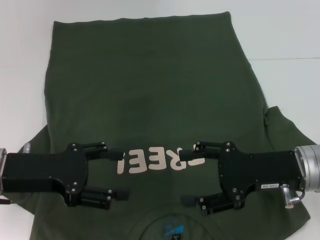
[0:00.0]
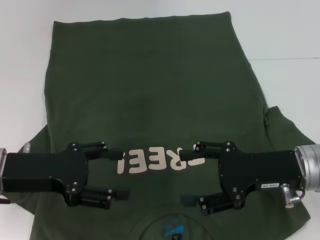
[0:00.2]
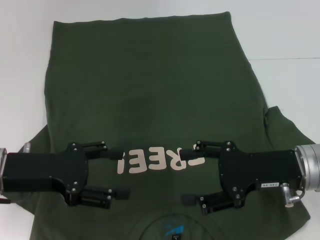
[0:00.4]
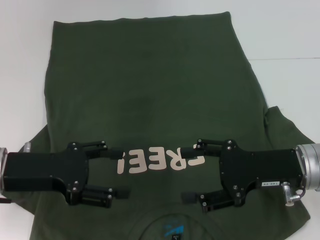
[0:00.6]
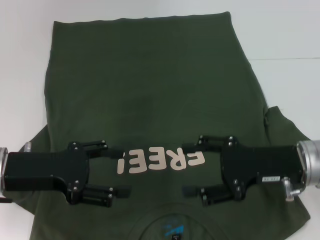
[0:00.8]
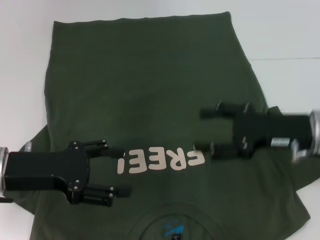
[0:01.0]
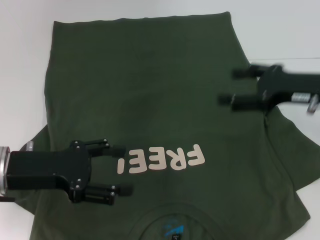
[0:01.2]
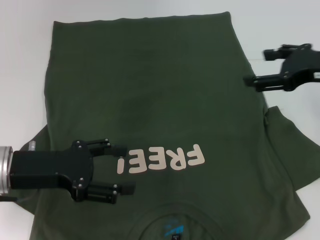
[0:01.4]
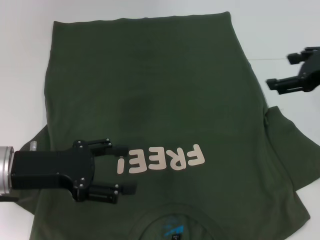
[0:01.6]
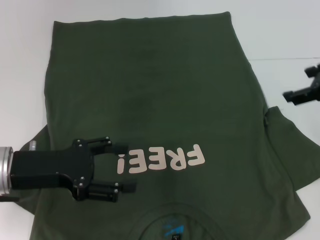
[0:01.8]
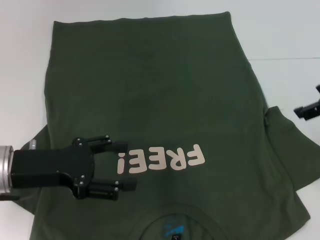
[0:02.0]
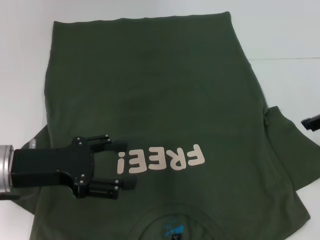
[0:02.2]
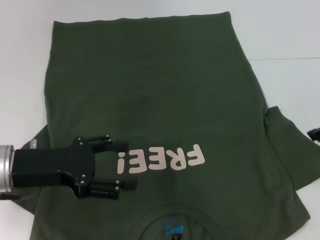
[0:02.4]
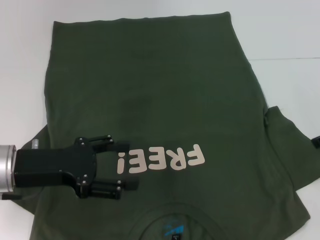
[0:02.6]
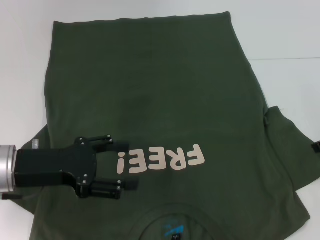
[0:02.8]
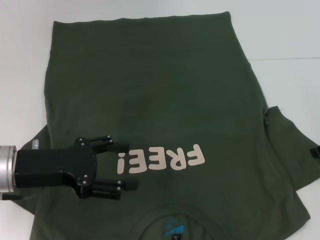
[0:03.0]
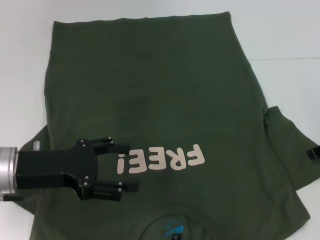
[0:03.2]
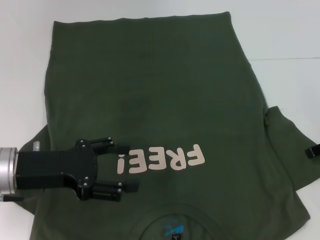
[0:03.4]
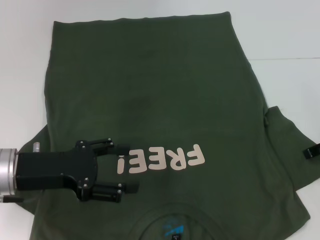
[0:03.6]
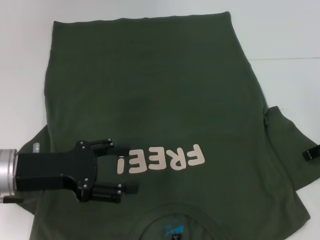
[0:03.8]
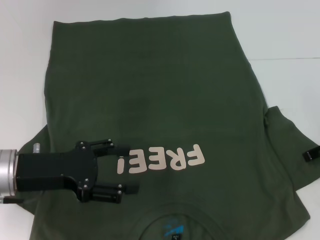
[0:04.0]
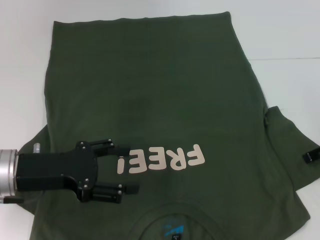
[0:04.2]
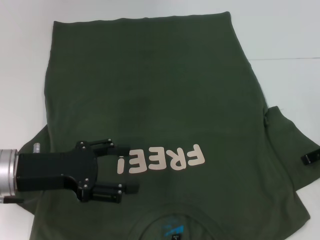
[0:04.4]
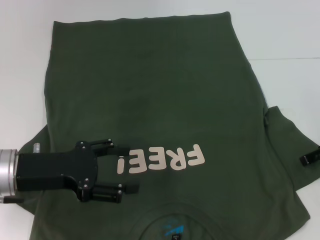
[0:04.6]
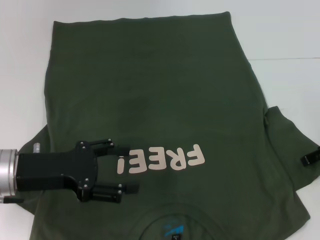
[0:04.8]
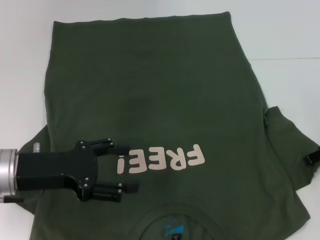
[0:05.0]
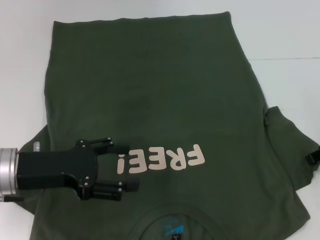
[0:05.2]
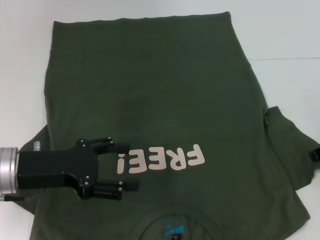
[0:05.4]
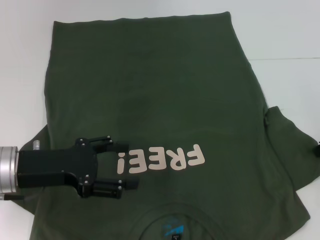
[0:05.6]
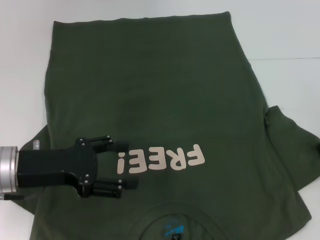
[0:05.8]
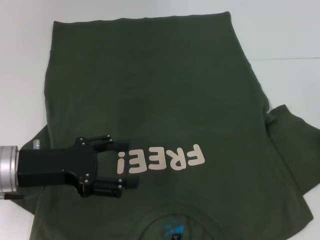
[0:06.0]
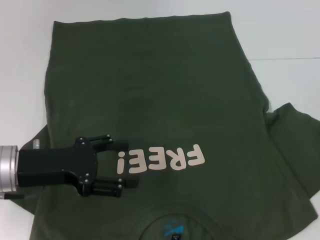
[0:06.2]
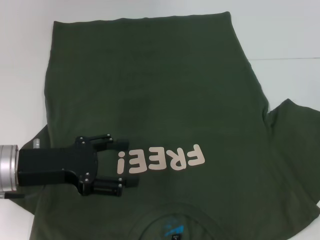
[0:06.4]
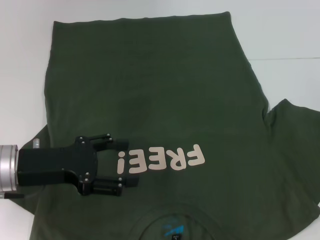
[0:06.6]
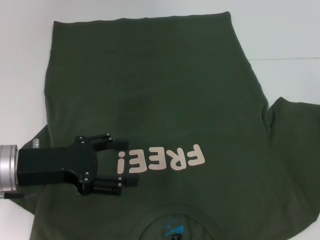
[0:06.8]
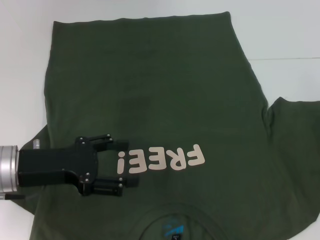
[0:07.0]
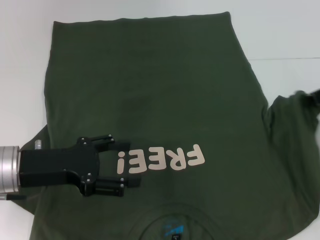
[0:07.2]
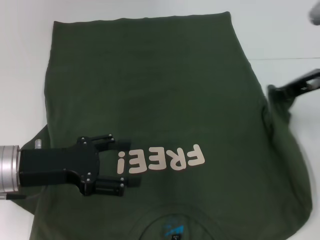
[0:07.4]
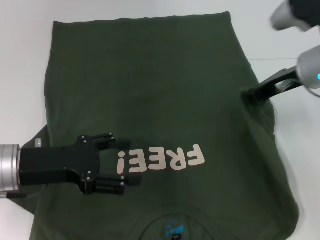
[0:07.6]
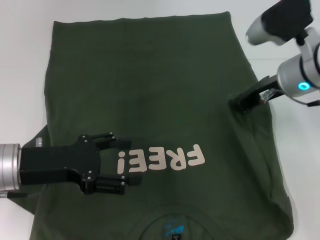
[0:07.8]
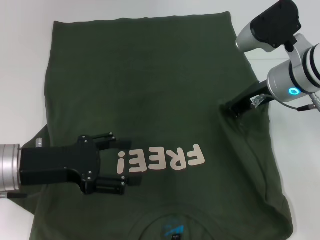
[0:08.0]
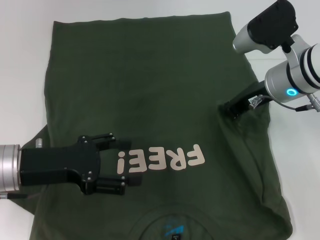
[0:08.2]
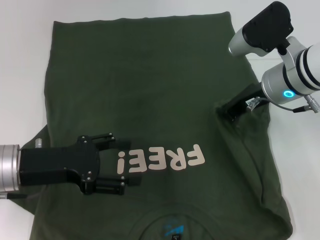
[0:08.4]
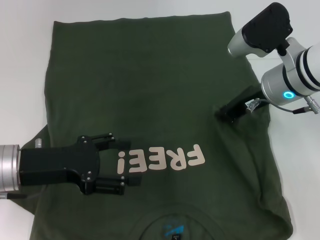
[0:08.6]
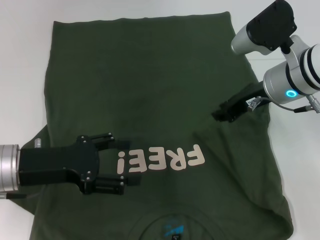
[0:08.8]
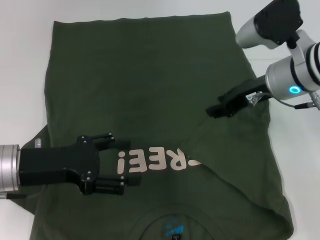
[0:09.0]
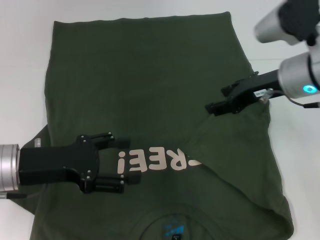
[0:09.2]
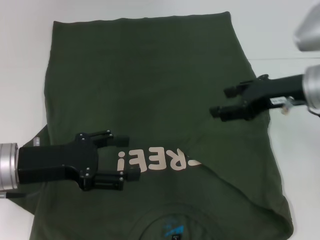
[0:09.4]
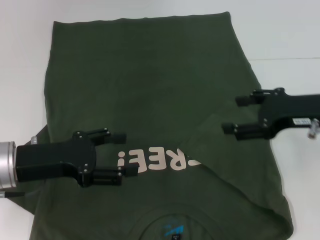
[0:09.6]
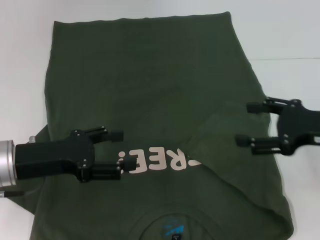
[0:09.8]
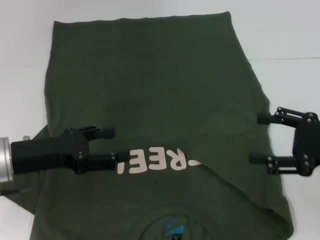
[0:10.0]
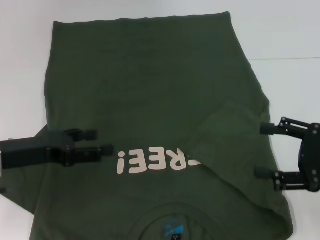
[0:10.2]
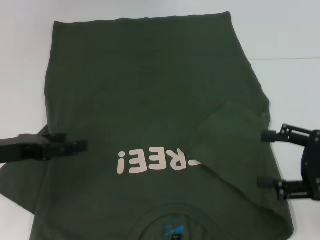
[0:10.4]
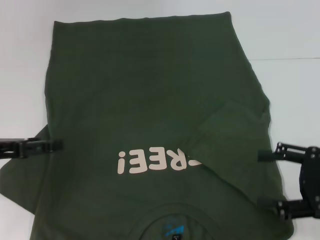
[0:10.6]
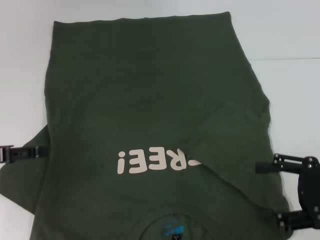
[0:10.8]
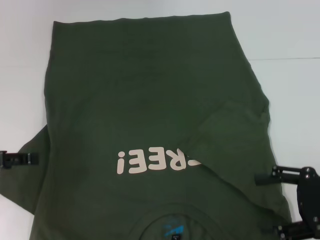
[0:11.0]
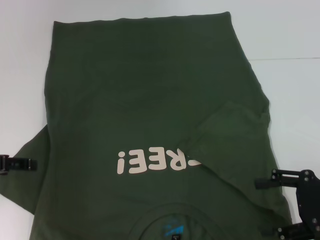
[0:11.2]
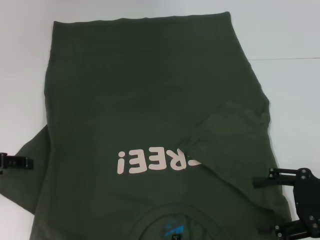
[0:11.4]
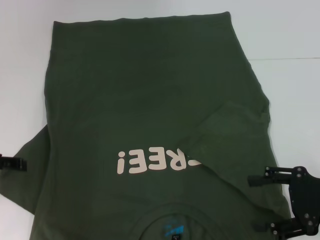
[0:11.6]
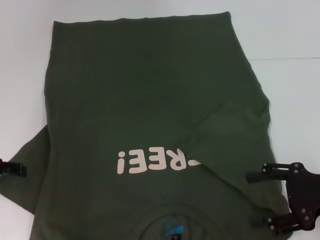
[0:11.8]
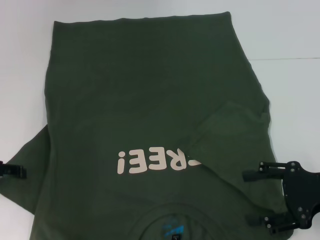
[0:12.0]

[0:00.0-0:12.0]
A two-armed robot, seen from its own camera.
Step, 0:00.0 to 0:09.0: Fold the bottom right sleeve with your right hand.
0:00.0 to 0:01.6: The right gripper heads upward, to the right and forward, covering about 15 cm.
0:01.6 to 0:03.0: The right gripper heads downward, covering about 5 cm.
0:03.0 to 0:04.4: The grippers move only a little.
0:04.4 to 0:06.0: The right gripper closes up.
0:06.0 to 0:07.6: The right gripper goes some 10 cm to the left.
0:07.6 to 0:09.0: The grippers move only a little.
0:09.0 to 0:10.4: The left gripper is displaced to the left by roughly 5 cm, while the right gripper goes some 20 cm backward and to the right, and opens its fingers.

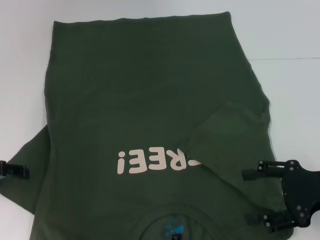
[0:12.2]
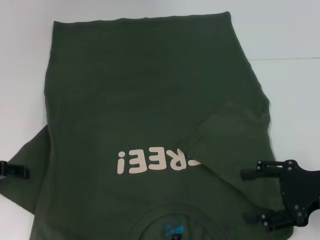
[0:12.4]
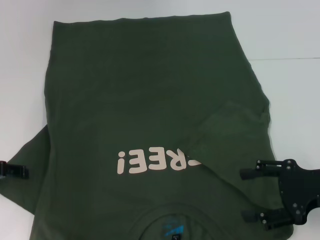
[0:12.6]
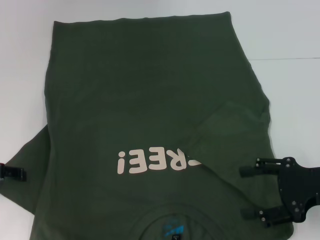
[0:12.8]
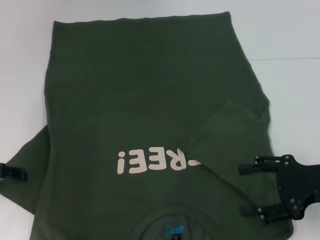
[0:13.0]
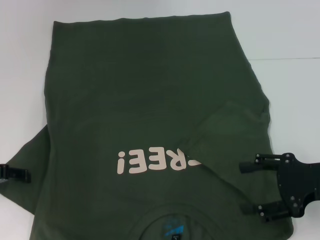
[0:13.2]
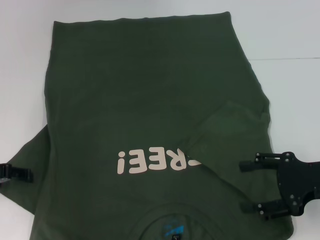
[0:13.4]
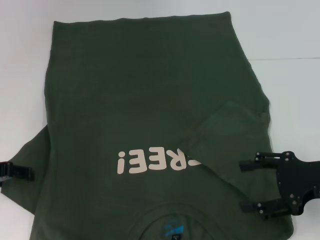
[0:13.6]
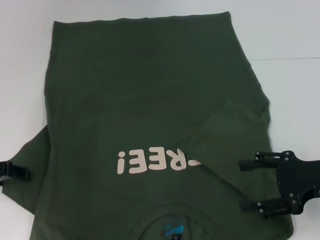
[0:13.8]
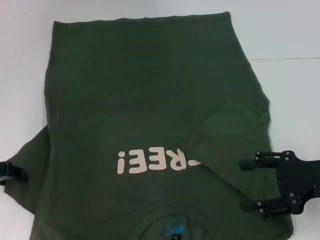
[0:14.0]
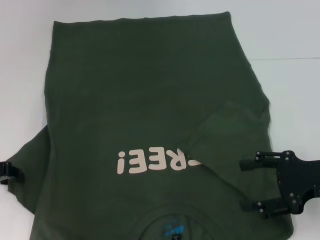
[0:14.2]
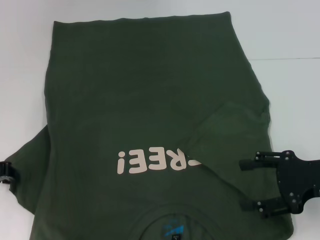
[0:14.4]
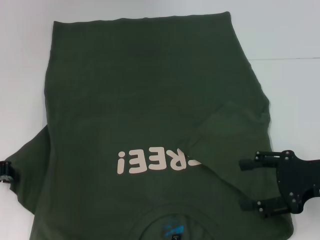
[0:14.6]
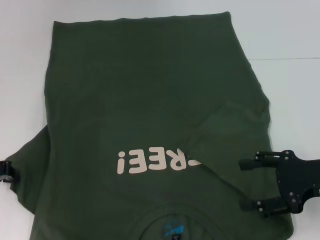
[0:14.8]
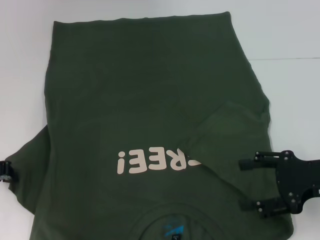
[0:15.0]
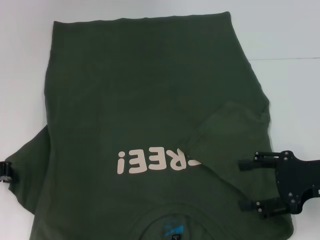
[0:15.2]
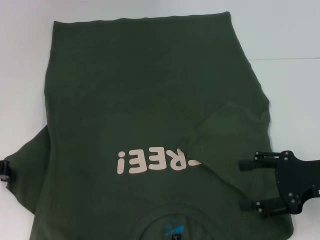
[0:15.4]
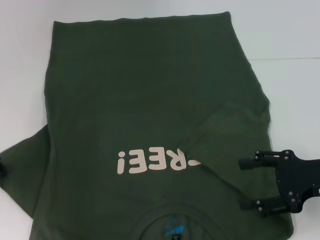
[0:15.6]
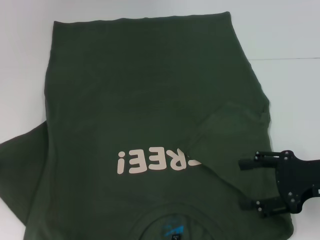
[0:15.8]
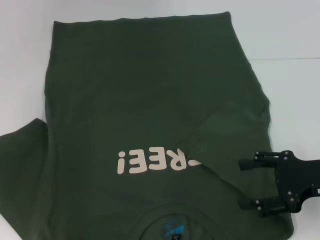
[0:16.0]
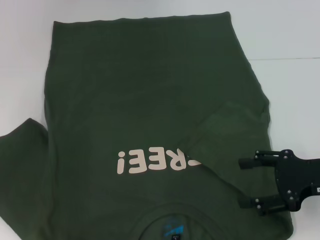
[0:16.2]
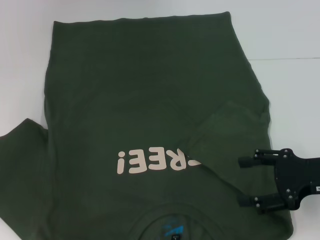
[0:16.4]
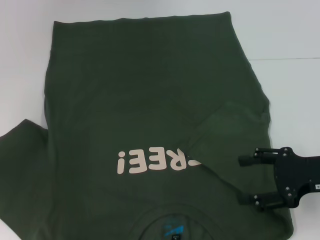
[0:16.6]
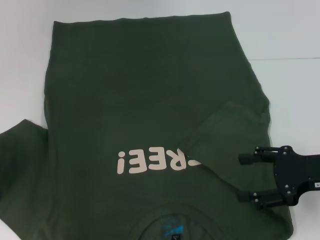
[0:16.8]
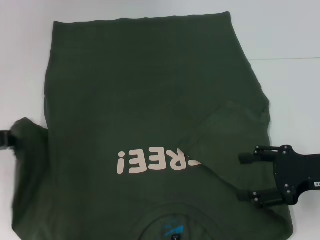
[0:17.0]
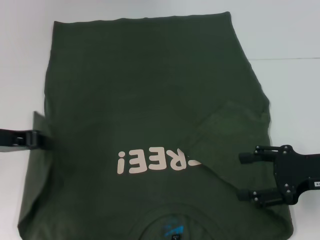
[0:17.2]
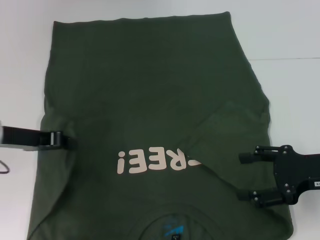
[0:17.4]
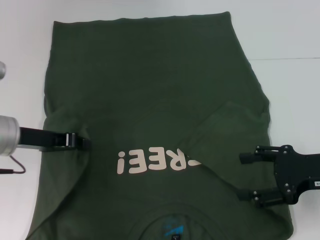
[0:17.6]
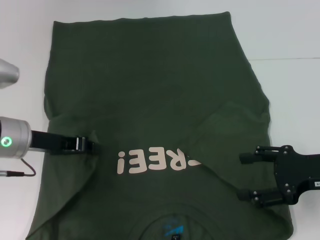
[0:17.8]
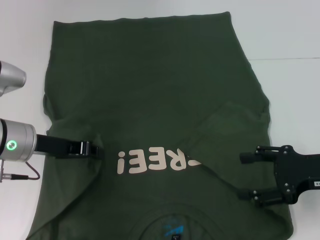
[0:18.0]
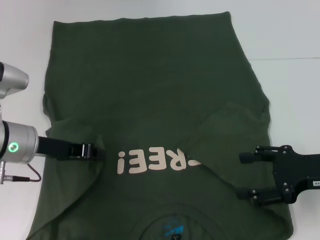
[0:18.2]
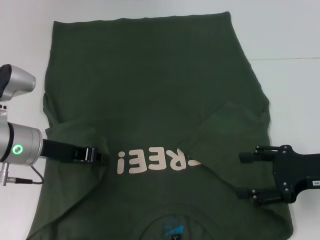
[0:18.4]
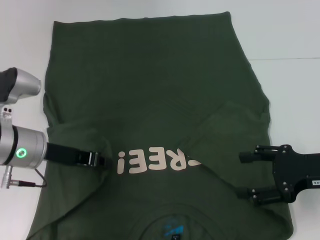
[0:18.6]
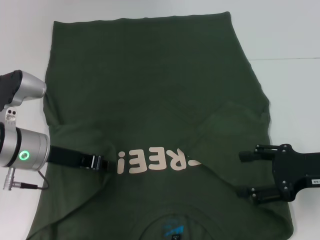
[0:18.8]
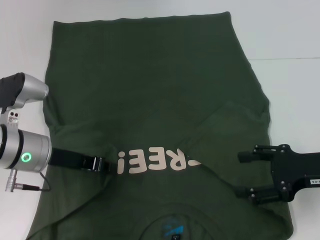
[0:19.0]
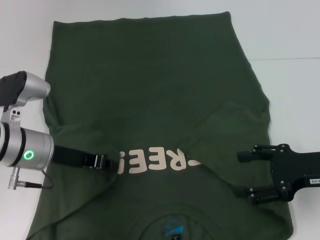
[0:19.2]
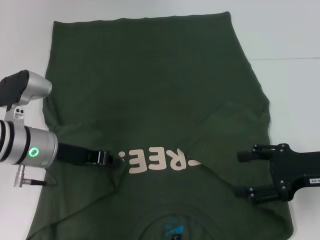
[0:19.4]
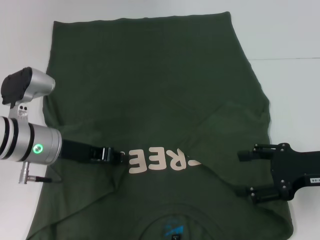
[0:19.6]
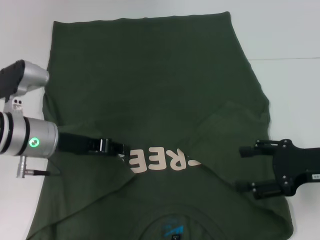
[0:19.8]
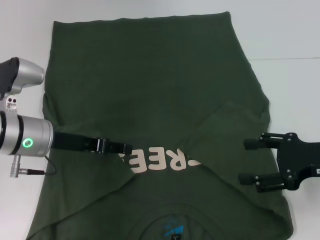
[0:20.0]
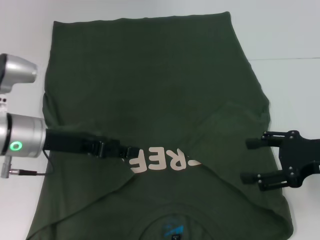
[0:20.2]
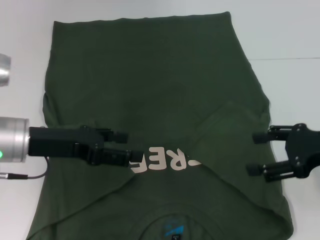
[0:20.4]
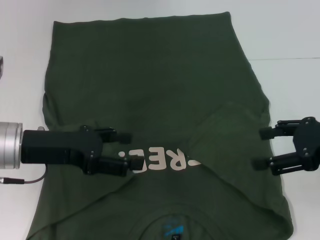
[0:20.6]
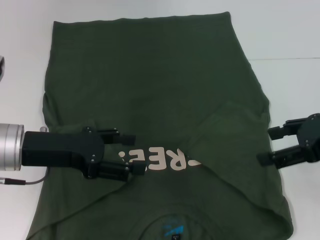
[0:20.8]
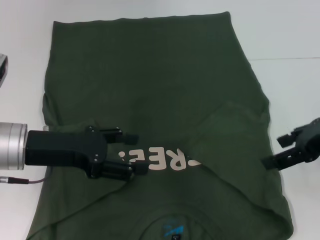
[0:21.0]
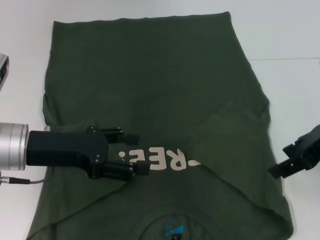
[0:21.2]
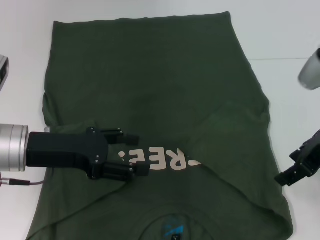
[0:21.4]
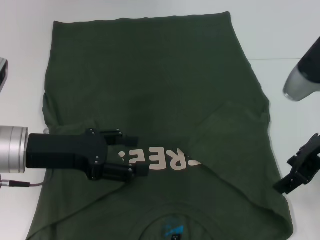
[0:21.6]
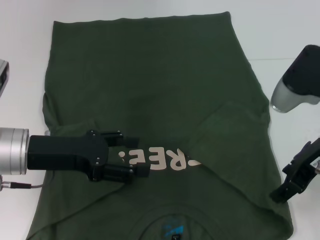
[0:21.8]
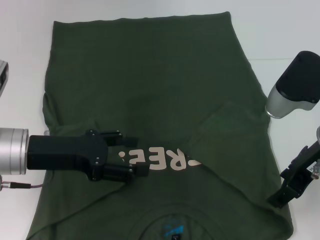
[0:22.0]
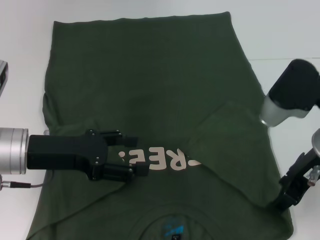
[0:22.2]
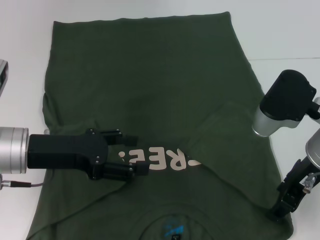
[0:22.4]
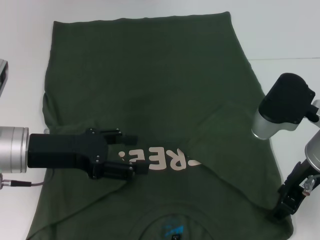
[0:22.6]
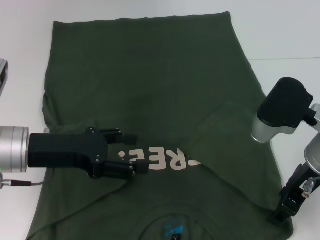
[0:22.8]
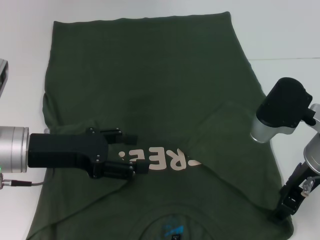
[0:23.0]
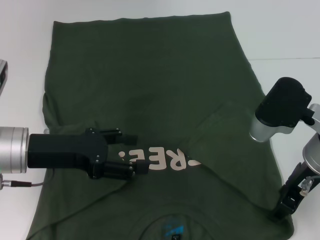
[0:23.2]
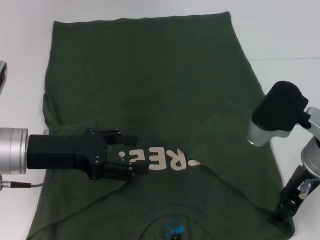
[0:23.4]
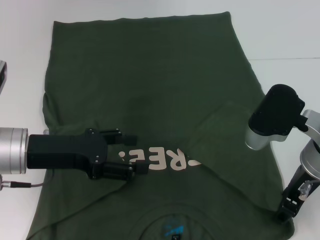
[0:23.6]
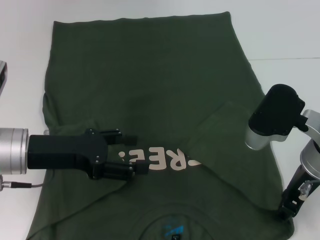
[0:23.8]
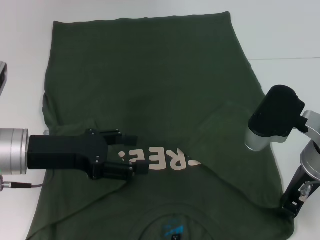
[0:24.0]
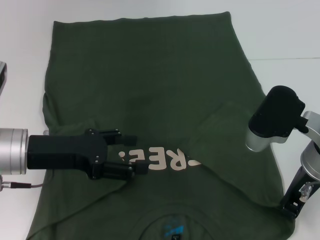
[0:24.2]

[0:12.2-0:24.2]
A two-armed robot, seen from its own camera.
Step, 0:12.2 to 0:19.8: Fold the bottom left sleeve with your left hand.
0:12.2 to 0:13.8: Both grippers stay about where they are.
0:15.2 to 0:16.6: The grippers move only a little.
0:16.6 to 0:18.2: The left gripper shifts roughly 15 cm to the right.
0:18.2 to 0:19.8: There are only small adjustments of the grippers.
0:19.8 to 0:21.2: The left gripper changes place by some 5 cm, and opens its fingers, while the right gripper is displaced upward by roughly 10 cm.
0:21.2 to 0:22.6: The right gripper heads to the left, covering roughly 5 cm.
0:22.6 to 0:24.2: The right gripper closes.
